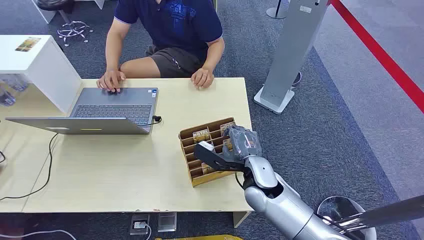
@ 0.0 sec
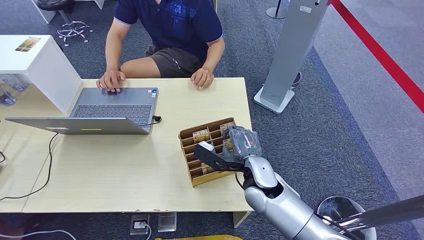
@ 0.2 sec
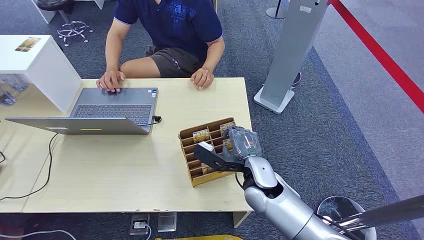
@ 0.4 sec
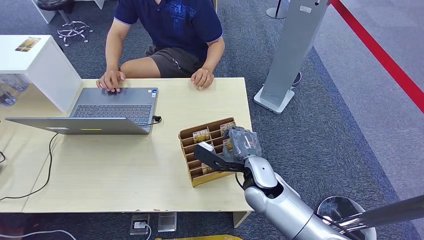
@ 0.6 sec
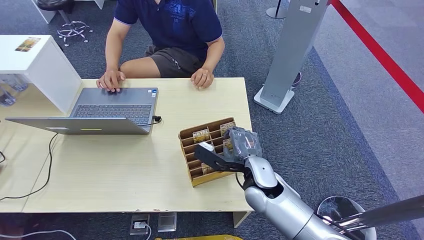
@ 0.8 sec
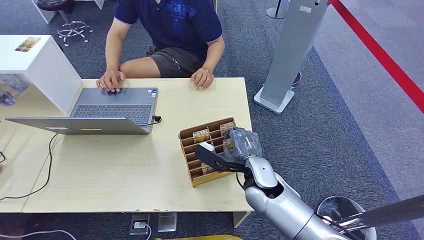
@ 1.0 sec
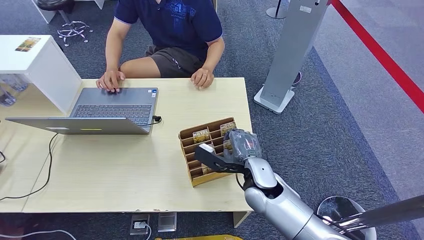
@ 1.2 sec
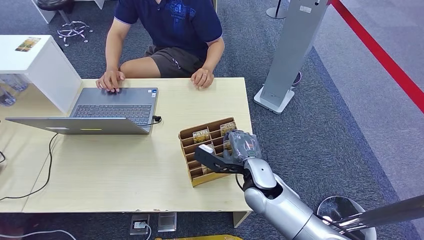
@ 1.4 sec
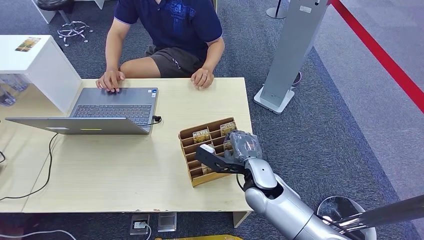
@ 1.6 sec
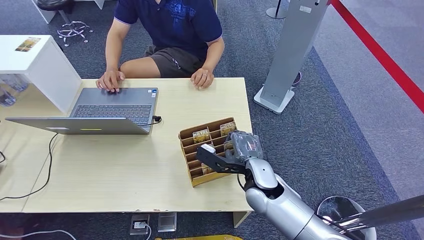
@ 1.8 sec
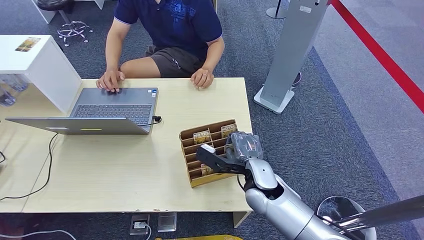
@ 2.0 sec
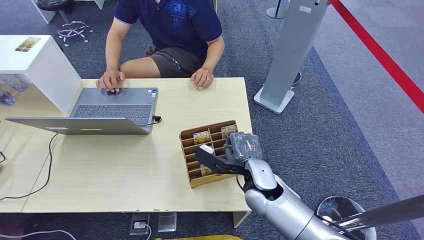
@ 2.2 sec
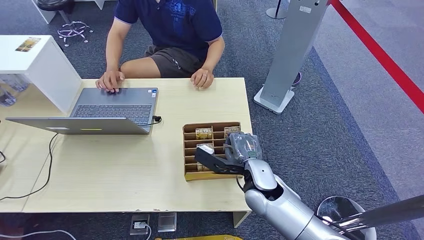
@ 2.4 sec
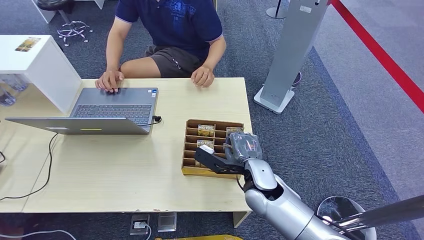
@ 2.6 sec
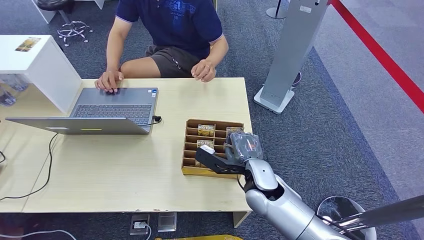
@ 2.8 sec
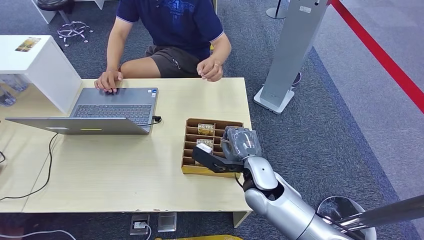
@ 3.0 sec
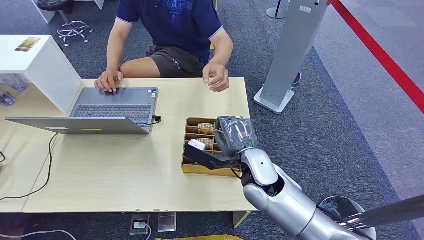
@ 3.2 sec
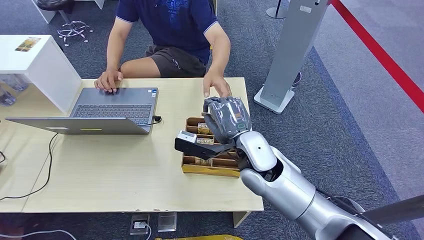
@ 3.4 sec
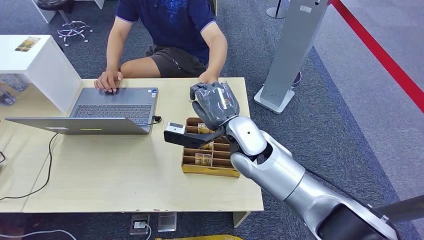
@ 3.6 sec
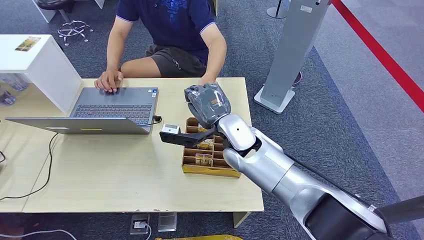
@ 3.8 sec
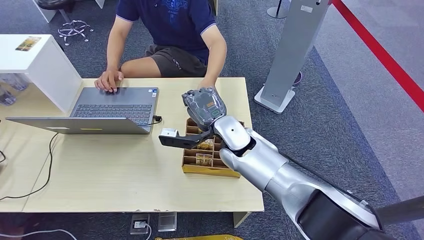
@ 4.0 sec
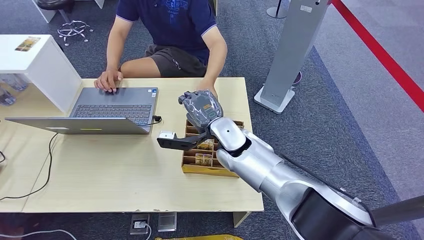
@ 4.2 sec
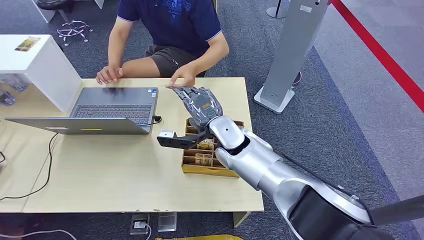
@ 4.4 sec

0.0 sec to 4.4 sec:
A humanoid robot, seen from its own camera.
Step, 0.0 sec to 3.0 sec: Pick up the room card from the card holder.
Step, 3.4 sec to 4.2 sec: Hand the room card to the target.
1.4 sec to 3.0 sec: The hands make only small movements.
3.0 sec to 4.4 sec: The right hand heads forward, to the left and upward, covering some 15 cm.
